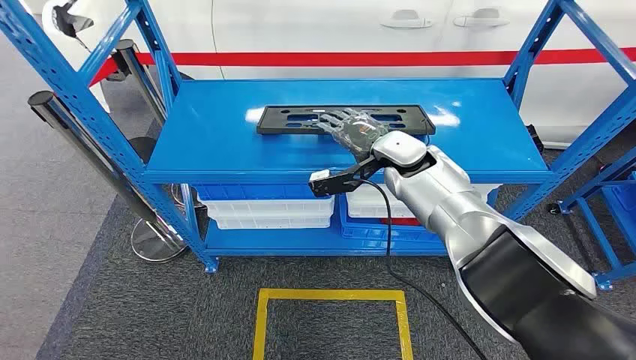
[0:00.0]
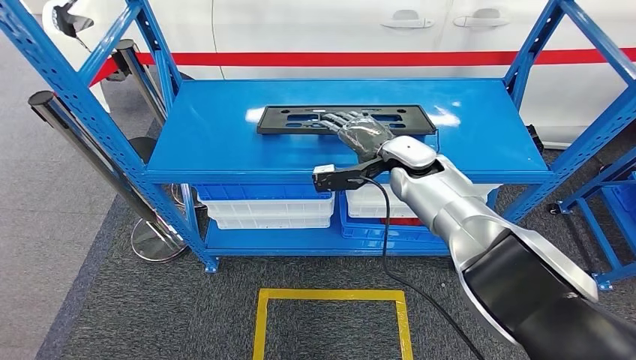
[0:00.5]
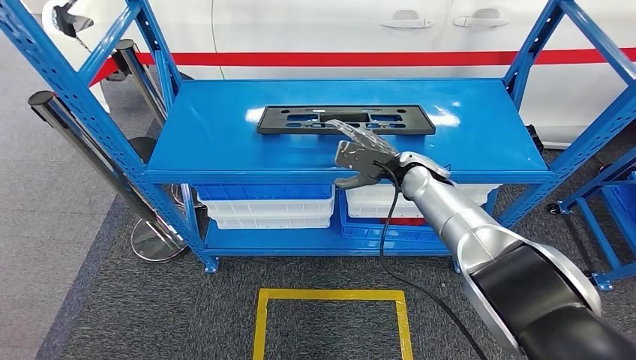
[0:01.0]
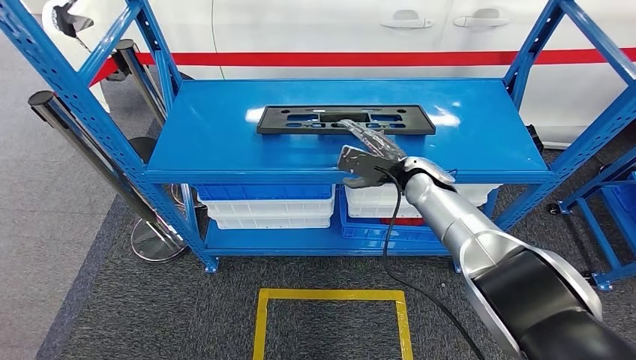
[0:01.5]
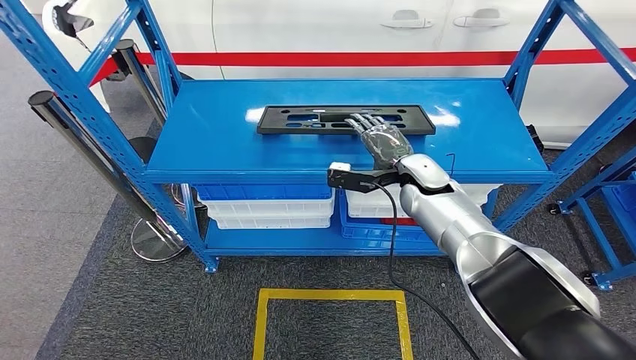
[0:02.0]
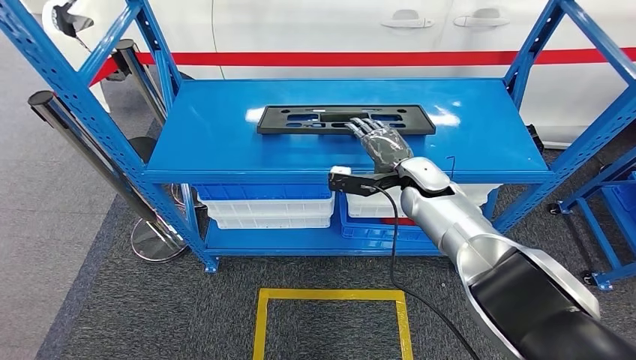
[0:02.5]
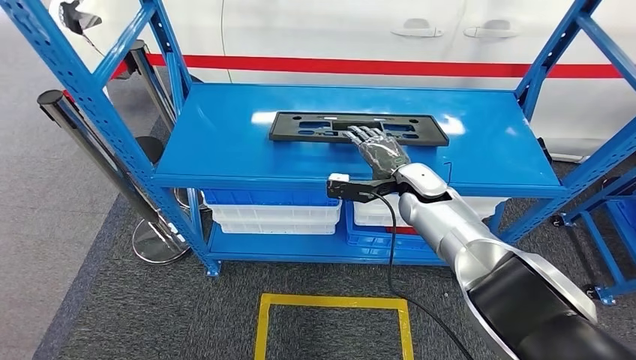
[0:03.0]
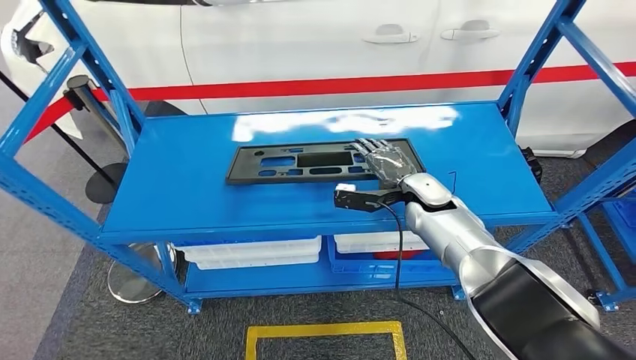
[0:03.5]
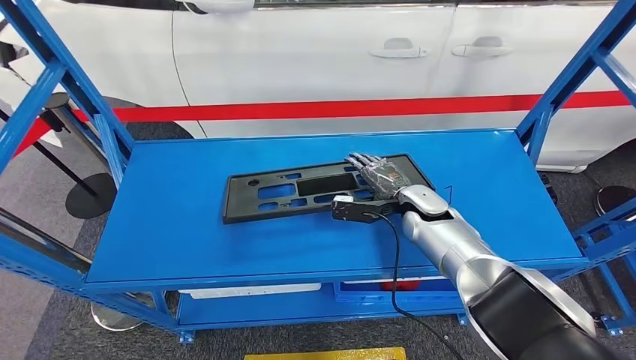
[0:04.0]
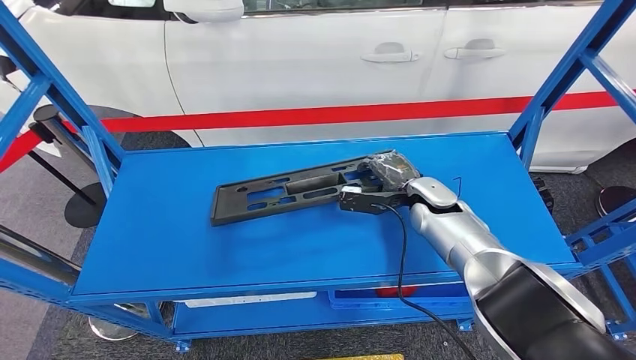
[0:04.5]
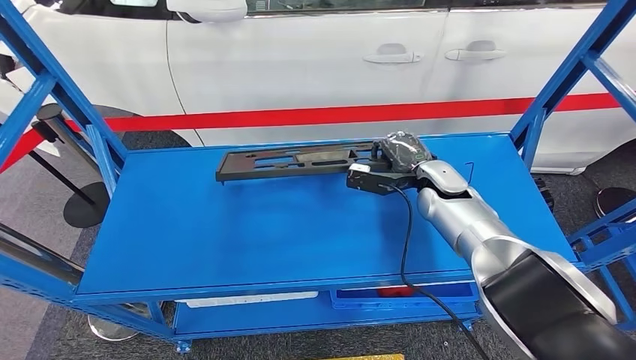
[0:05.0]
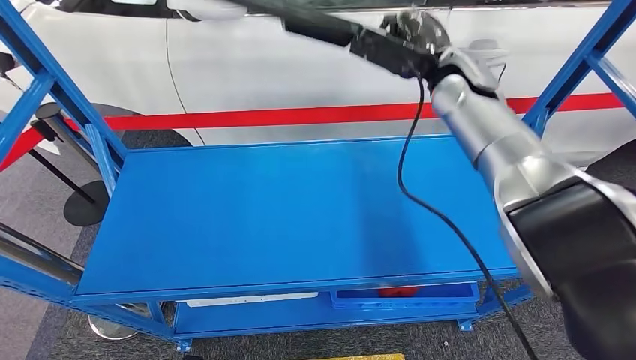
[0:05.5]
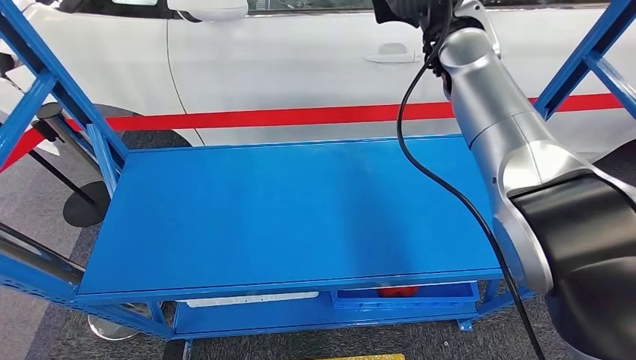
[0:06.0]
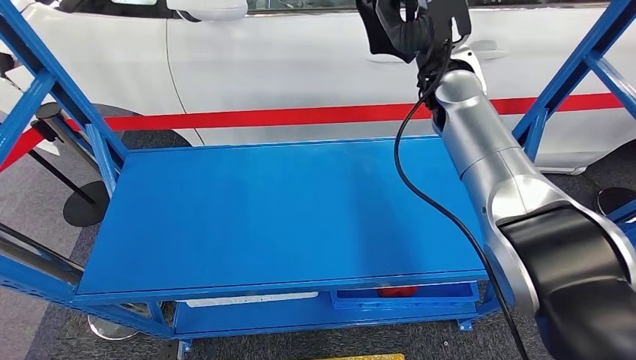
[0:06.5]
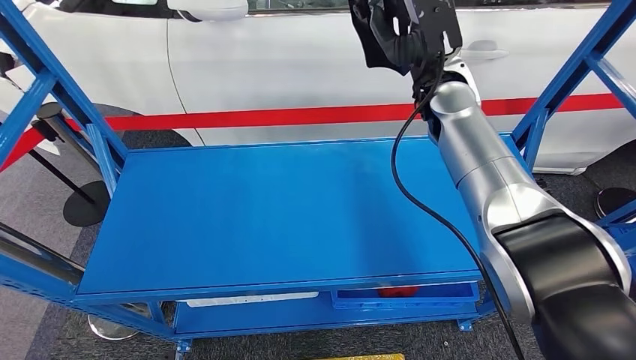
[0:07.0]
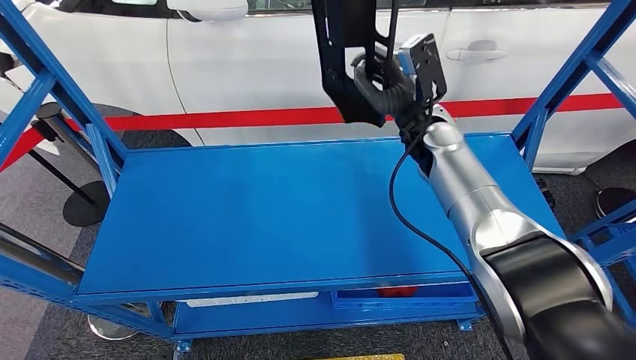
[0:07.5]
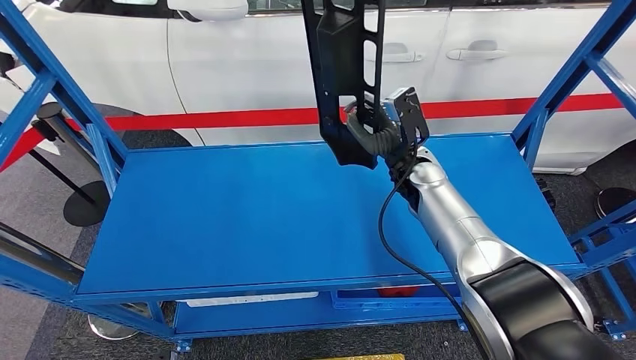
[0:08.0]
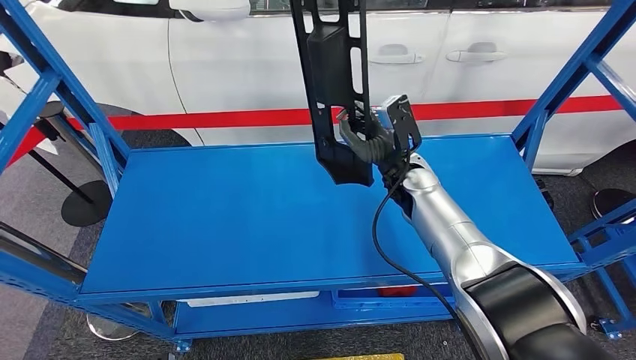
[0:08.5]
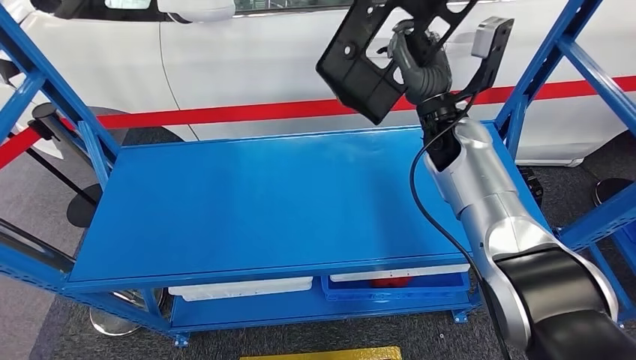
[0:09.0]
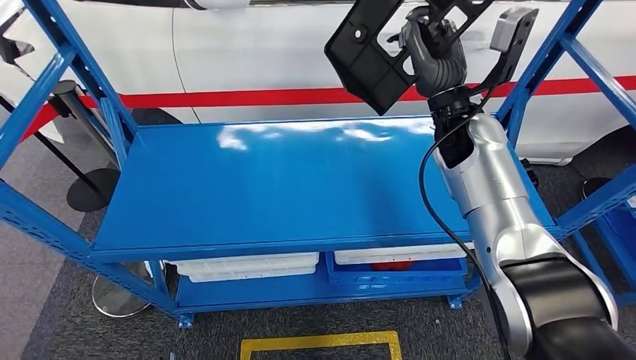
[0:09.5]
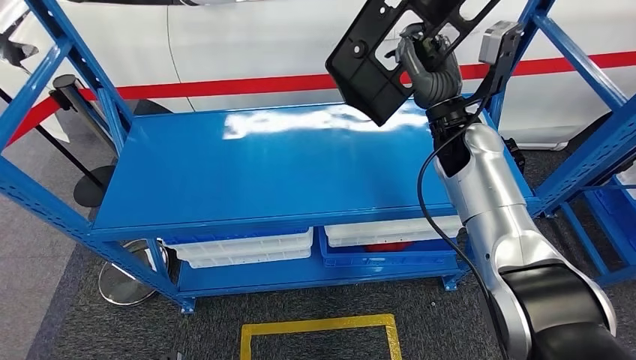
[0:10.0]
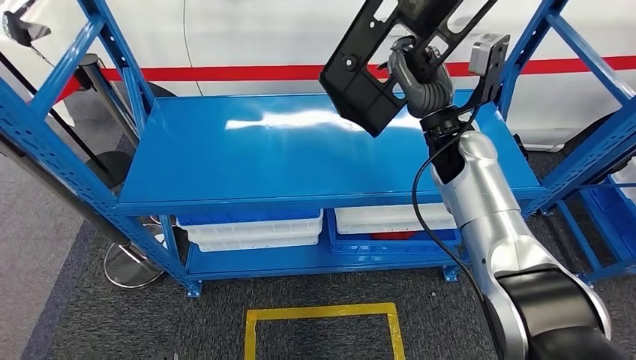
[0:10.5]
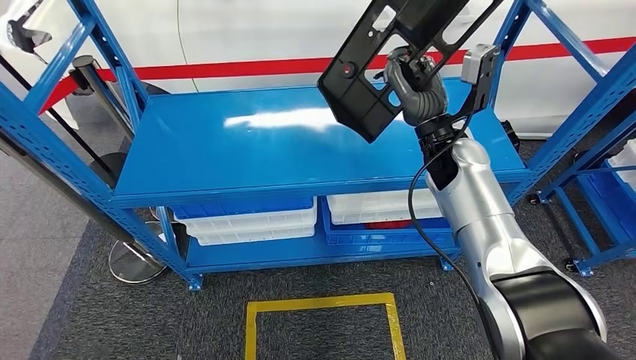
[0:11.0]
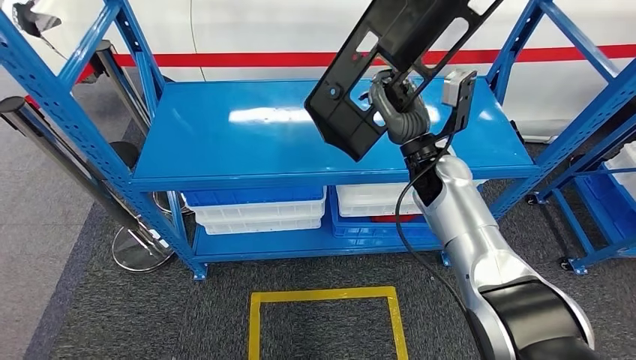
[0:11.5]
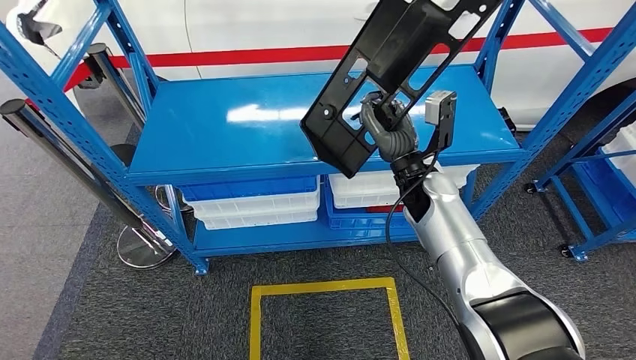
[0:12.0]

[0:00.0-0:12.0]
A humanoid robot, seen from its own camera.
Step, 0:00.0 to 0:06.0: Pick up the large material from the shelf.

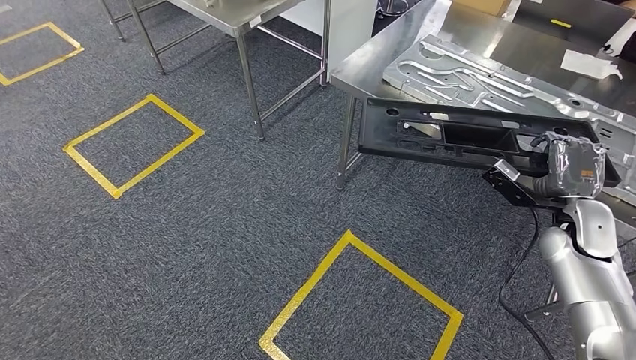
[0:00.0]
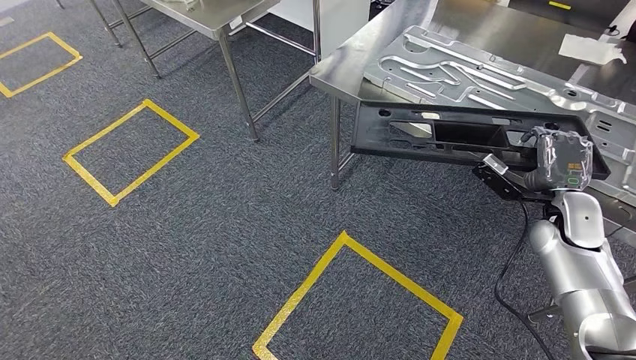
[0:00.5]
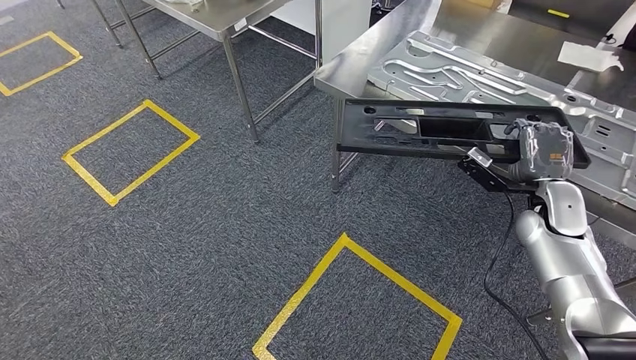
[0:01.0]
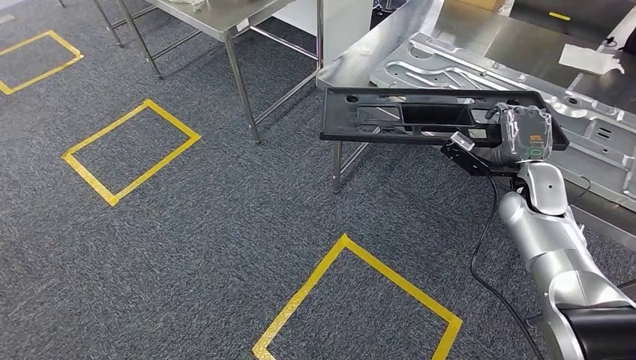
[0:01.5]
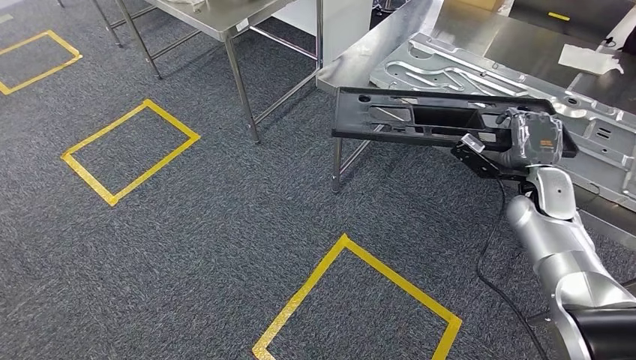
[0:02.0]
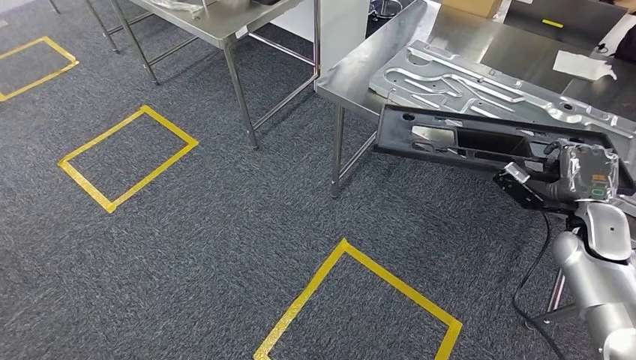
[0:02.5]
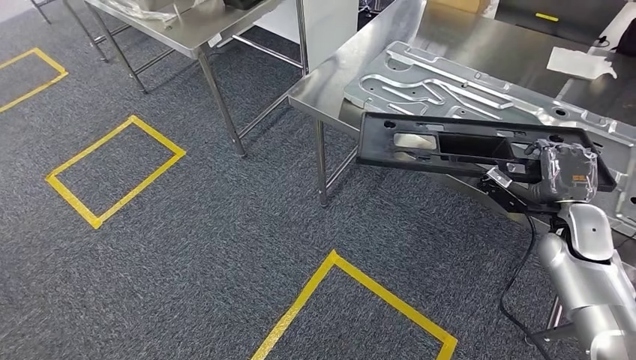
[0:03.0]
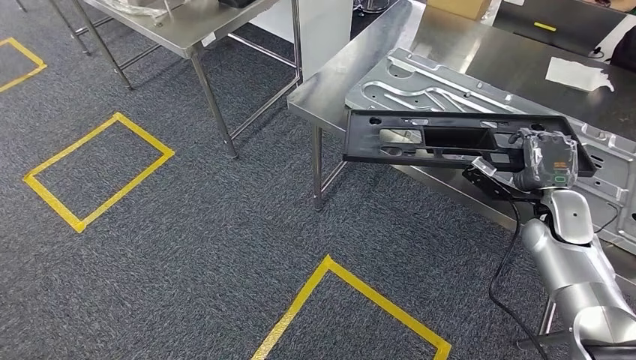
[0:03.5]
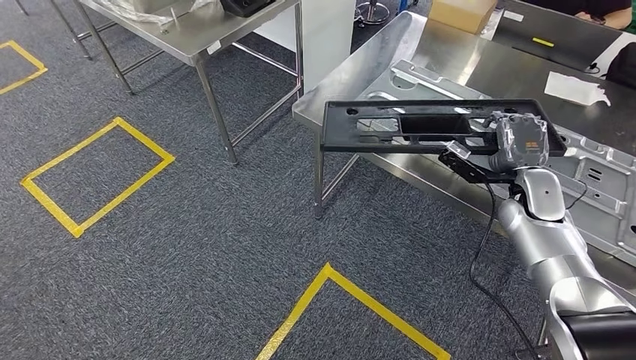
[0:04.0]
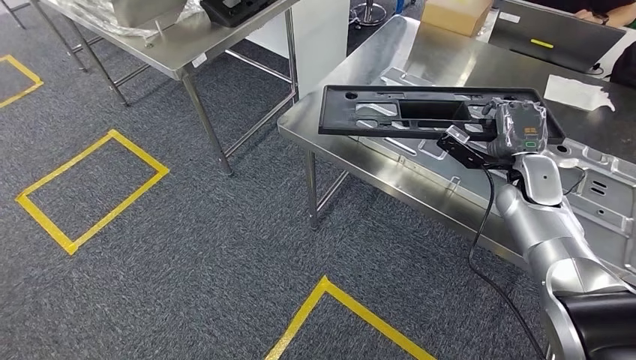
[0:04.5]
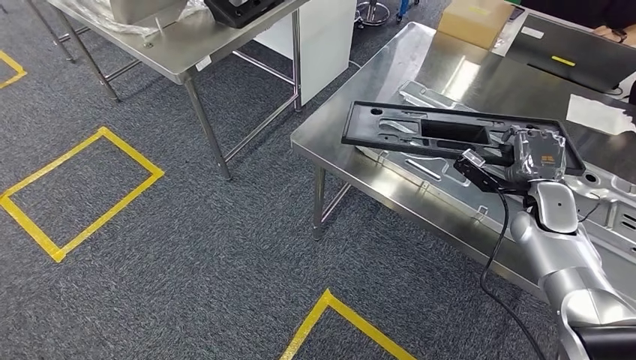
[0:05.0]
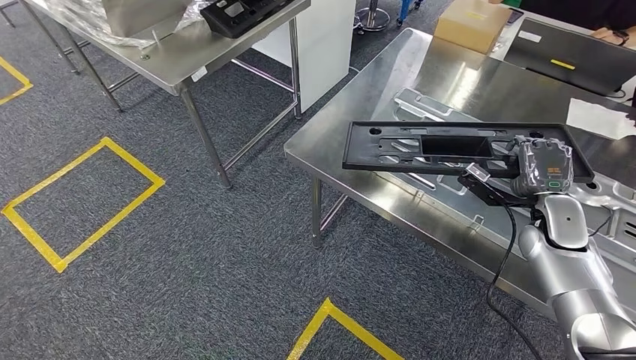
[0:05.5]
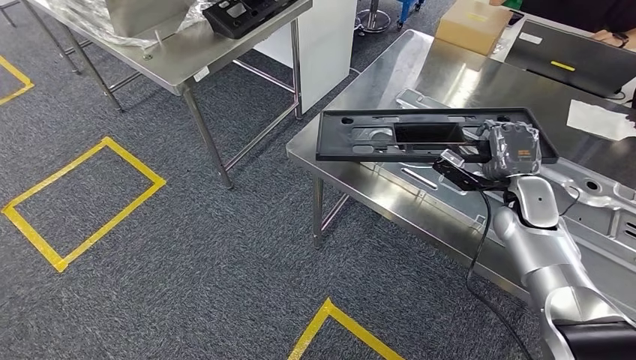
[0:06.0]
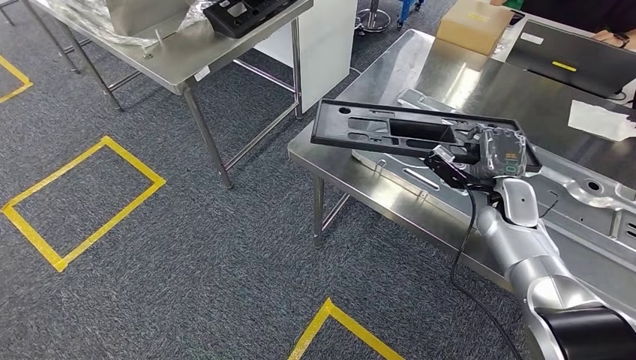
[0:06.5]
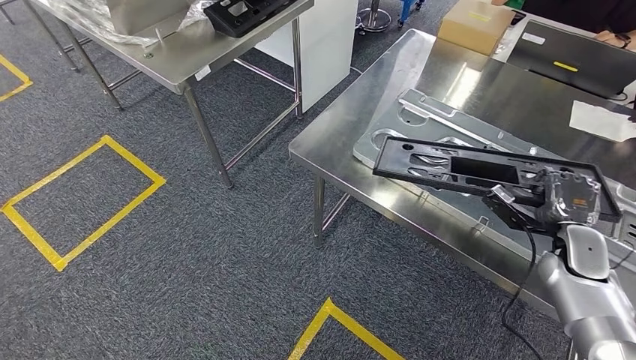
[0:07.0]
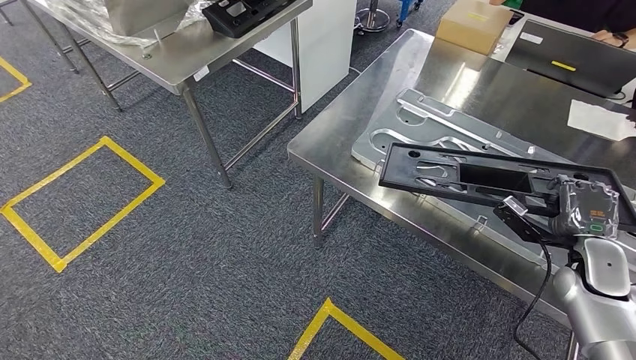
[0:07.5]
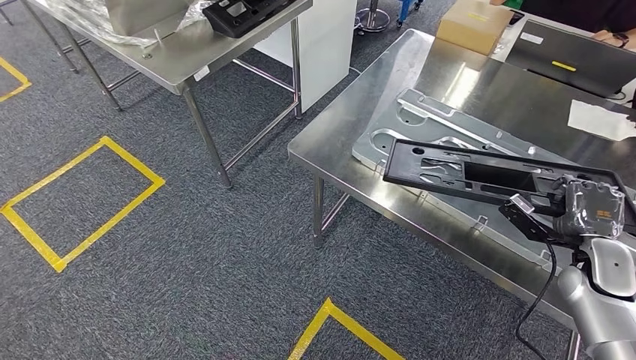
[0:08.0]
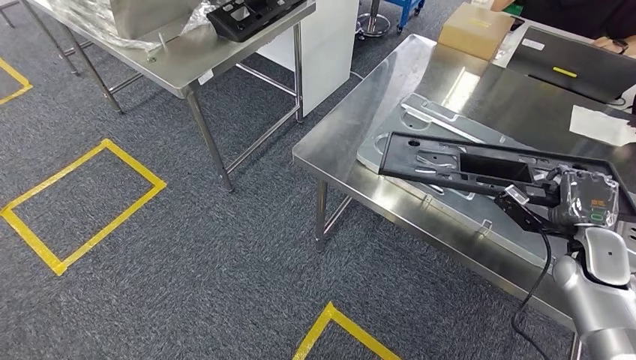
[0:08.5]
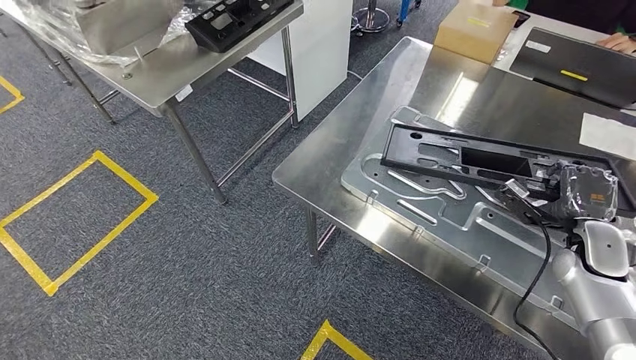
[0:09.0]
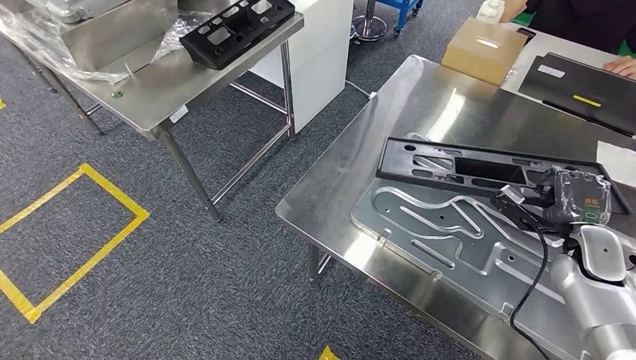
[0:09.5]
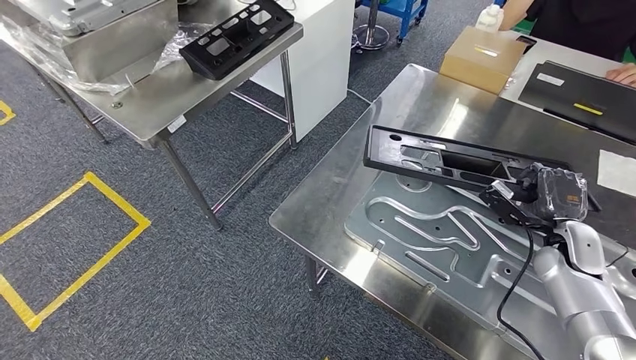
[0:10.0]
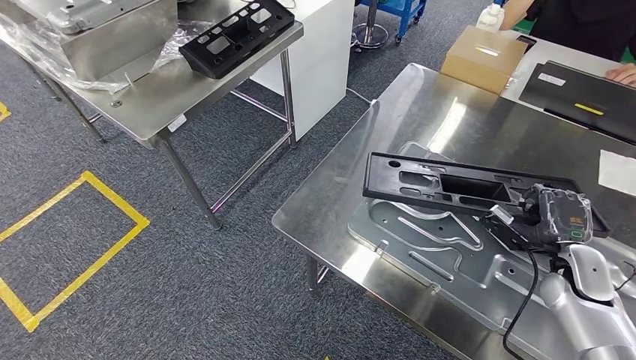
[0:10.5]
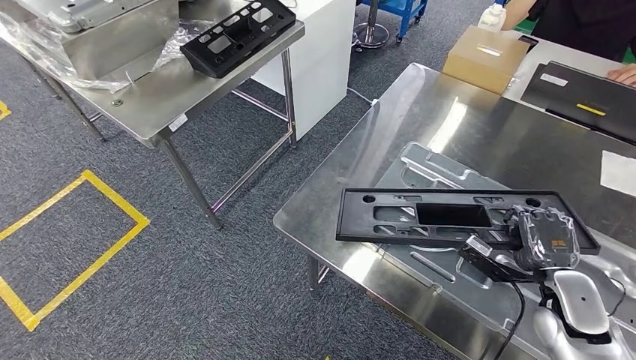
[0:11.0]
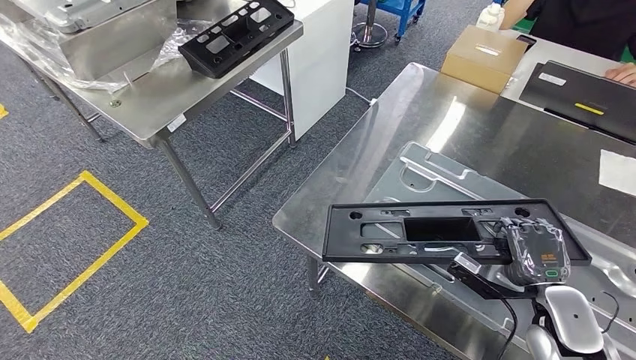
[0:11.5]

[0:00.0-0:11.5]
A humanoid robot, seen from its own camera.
0:06.0 to 0:07.5: The right hand travels backward, to the right and downward by some 15 cm.
